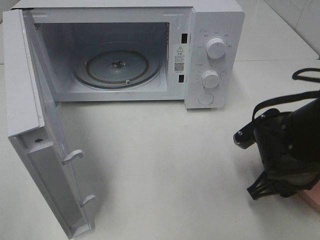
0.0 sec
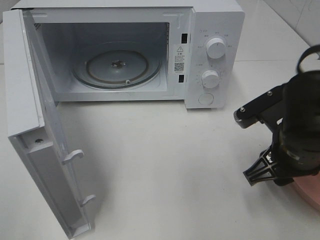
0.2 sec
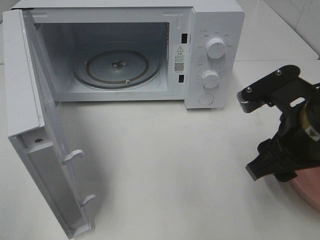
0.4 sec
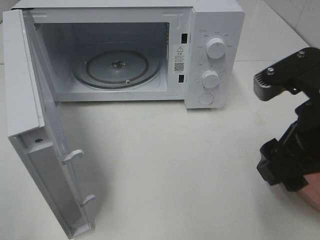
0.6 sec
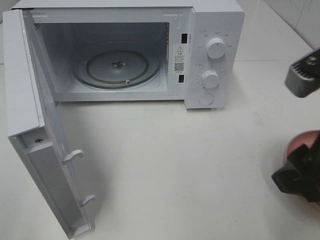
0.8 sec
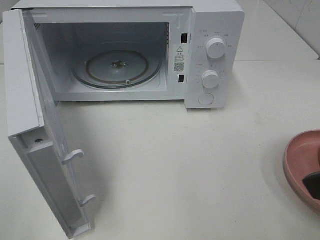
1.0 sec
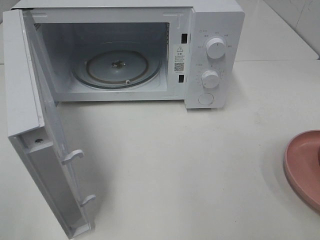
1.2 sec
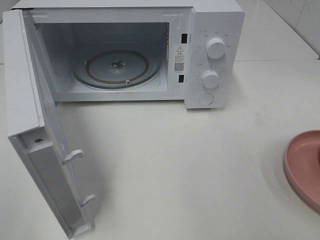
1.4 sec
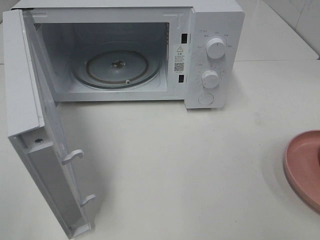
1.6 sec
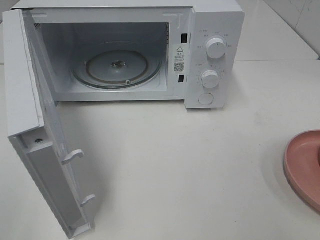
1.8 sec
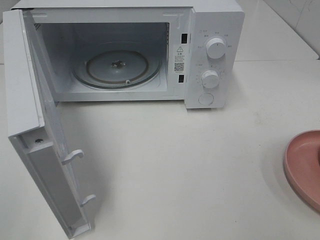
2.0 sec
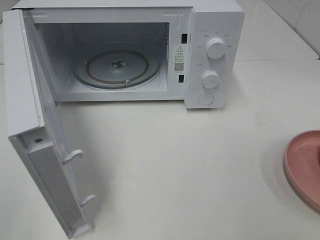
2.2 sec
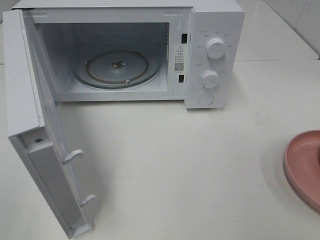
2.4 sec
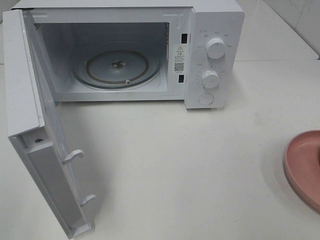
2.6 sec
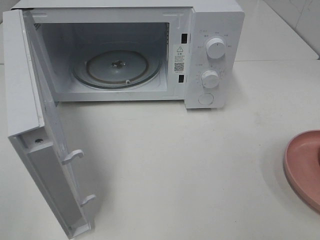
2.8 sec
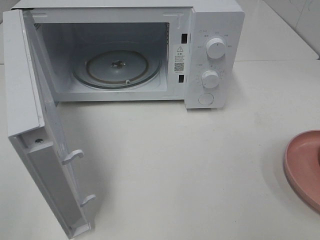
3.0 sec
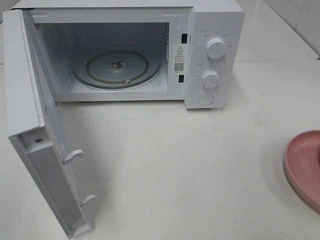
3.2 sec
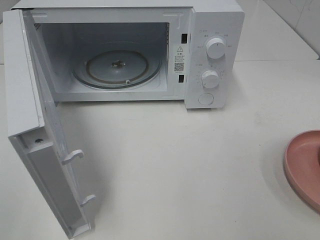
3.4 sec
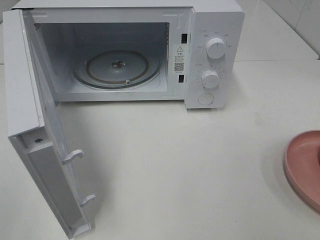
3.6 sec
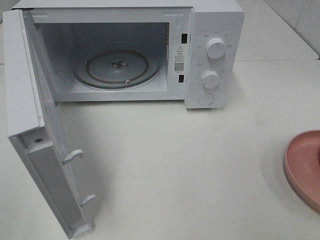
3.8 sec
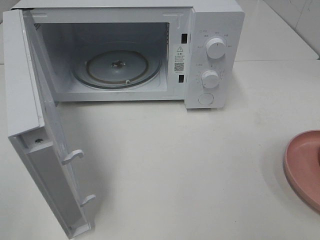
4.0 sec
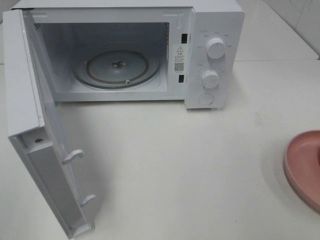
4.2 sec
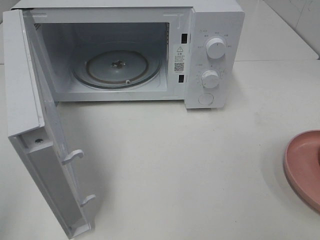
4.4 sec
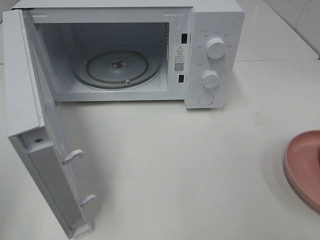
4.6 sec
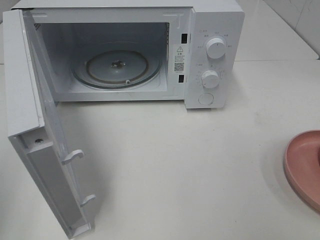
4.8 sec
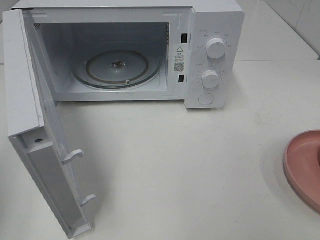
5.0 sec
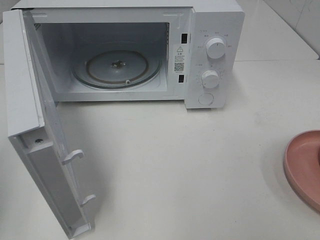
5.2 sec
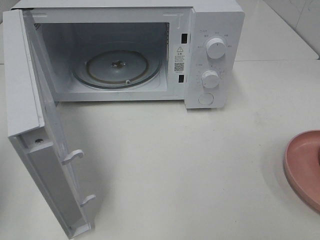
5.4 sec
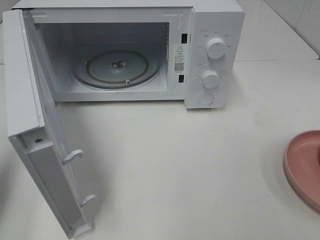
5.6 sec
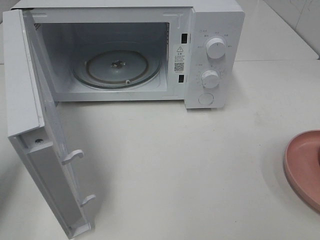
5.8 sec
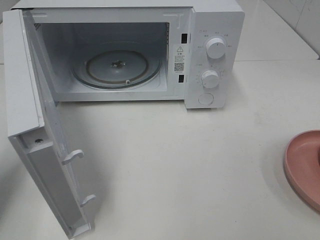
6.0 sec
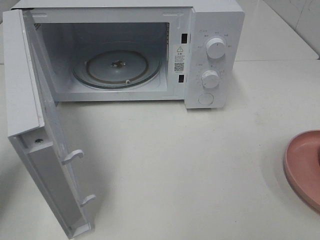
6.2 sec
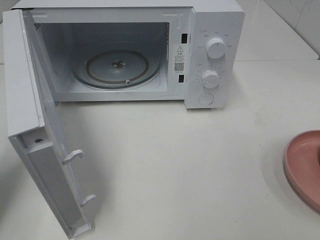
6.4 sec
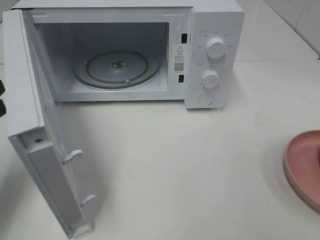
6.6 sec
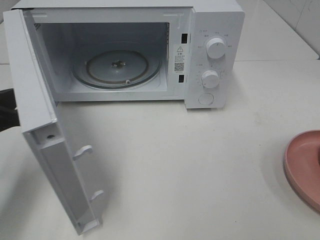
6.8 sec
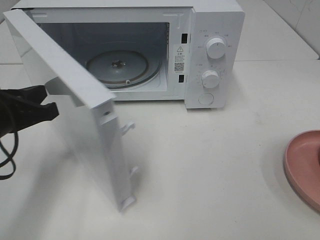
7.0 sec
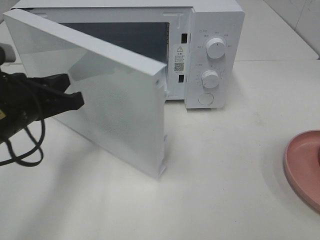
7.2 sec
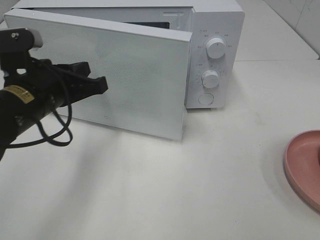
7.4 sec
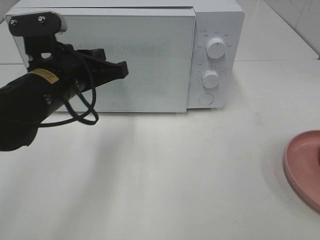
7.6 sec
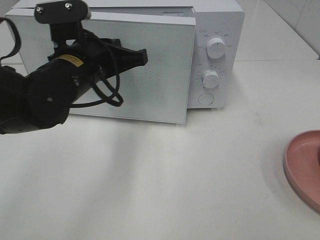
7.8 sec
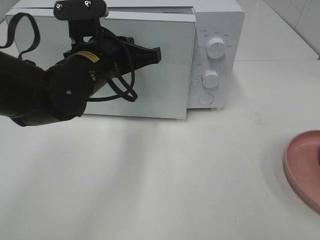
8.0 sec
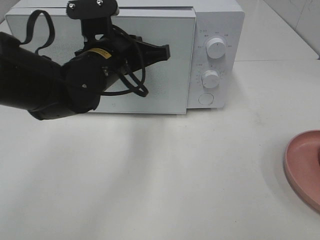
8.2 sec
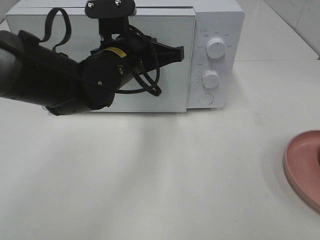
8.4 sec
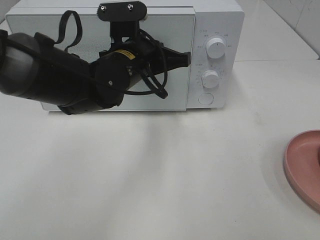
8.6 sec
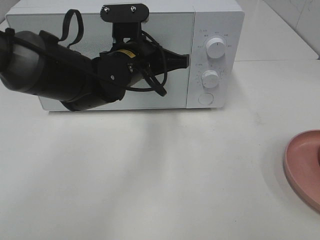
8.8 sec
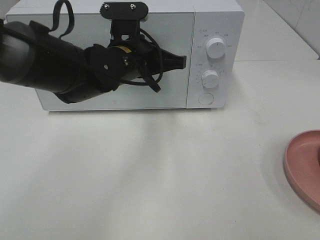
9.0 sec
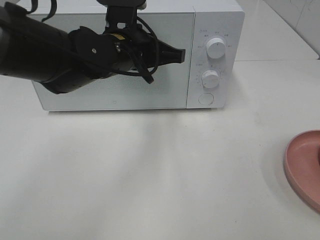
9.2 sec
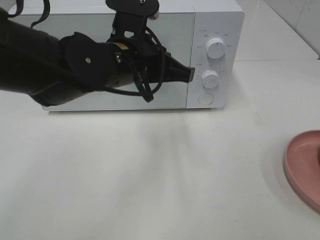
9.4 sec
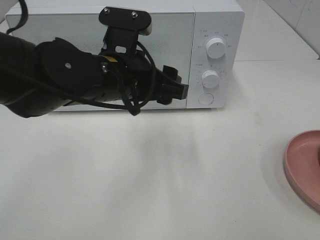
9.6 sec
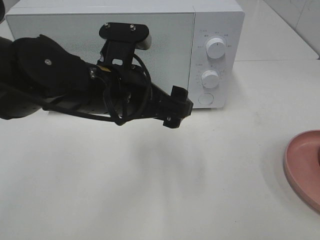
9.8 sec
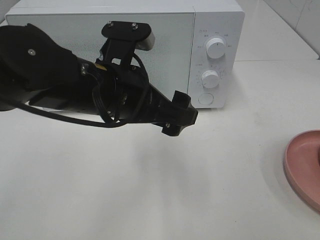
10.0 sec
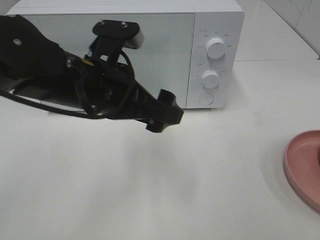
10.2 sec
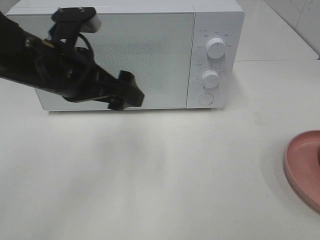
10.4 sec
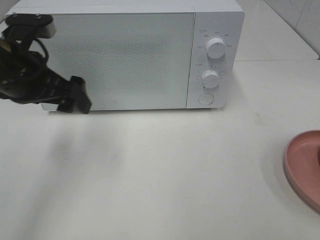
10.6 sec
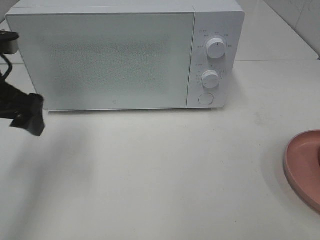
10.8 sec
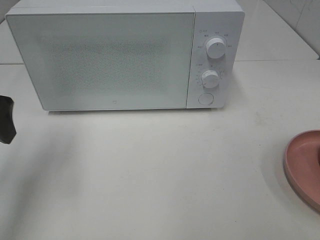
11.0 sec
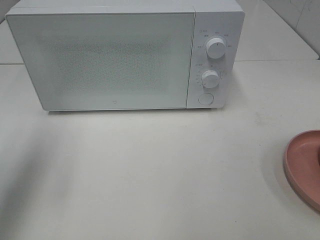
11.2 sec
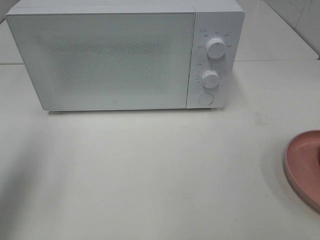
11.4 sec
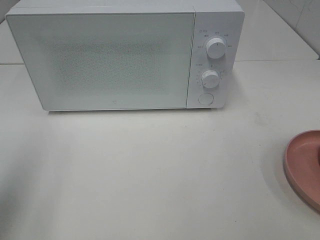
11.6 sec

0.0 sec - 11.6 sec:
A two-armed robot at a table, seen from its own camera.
Task of the whole recording: Heat the burger.
Step, 0.2 sec - 9.2 sec: Left hand: close the microwave door.
0.0 sec - 1.4 sec: The right gripper moves upward and backward, approximately 25 cm.
4.4 sec - 5.8 sec: The left gripper shifts roughly 15 cm forward and downward, and closes.
5.8 sec - 7.2 sec: The left gripper heads to the right and forward, covering some 15 cm.
7.2 sec - 8.8 sec: The left gripper shifts approximately 20 cm to the right and forward.
8.8 sec - 10.2 sec: The left gripper heads backward, covering roughly 10 cm, and opens up.
10.2 sec - 11.6 sec: The left gripper moves to the left and backward, some 25 cm.

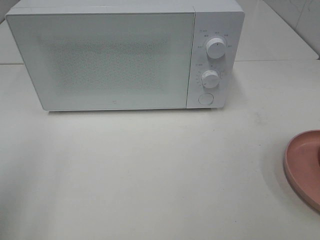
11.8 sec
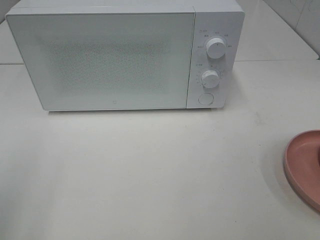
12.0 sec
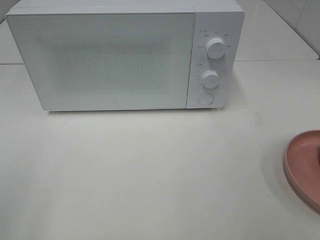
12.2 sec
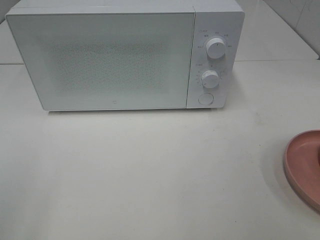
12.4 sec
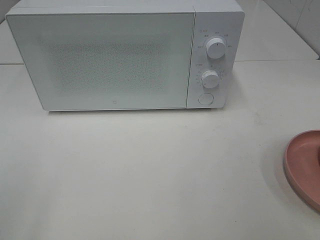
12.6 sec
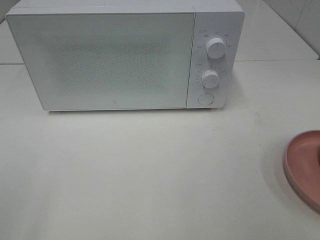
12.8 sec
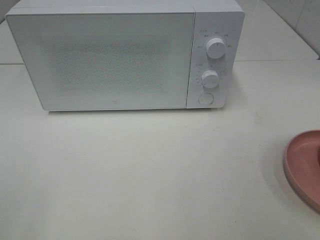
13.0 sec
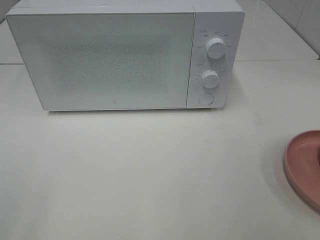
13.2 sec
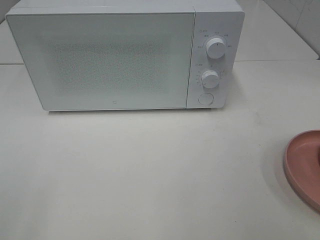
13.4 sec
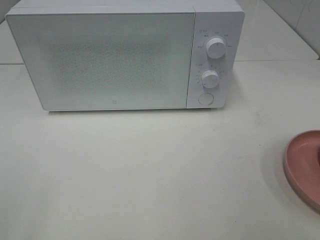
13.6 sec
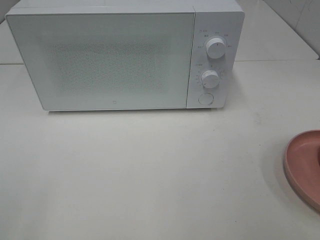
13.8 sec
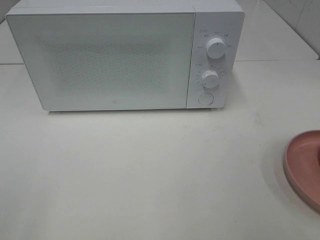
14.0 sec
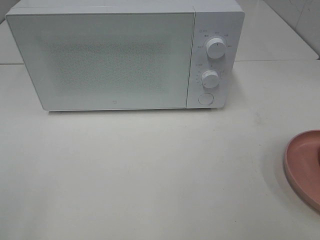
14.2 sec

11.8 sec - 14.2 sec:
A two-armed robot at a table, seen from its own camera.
Task of the whole recording: Heat the burger.
13.0 sec - 14.2 sec: The two grippers keep their place.

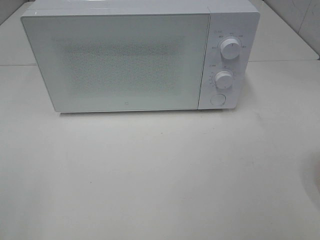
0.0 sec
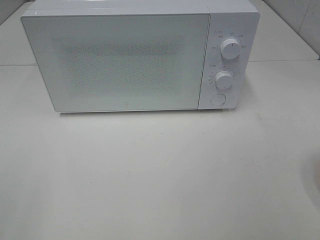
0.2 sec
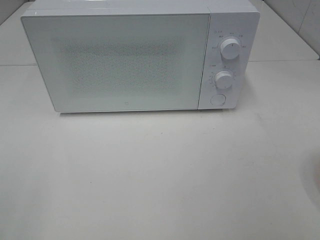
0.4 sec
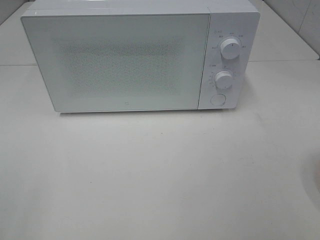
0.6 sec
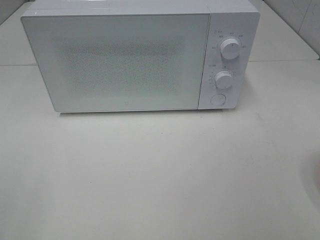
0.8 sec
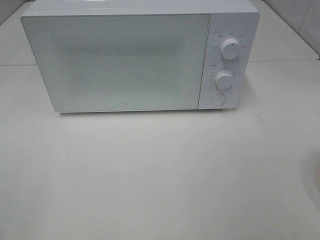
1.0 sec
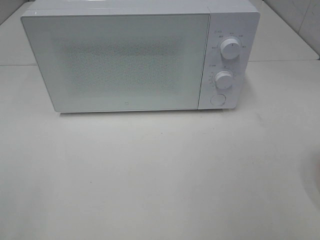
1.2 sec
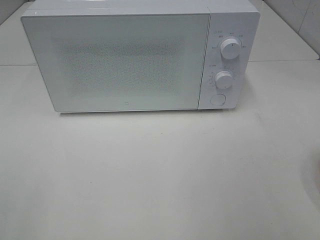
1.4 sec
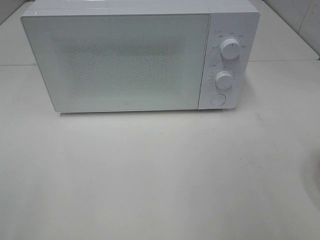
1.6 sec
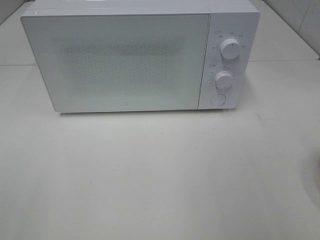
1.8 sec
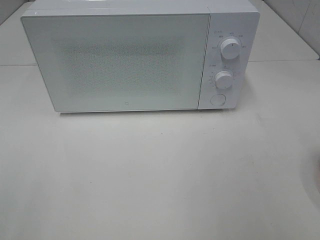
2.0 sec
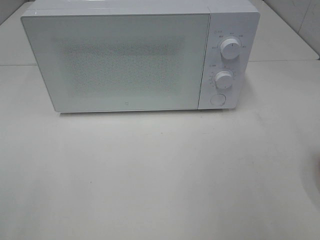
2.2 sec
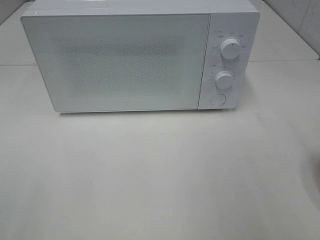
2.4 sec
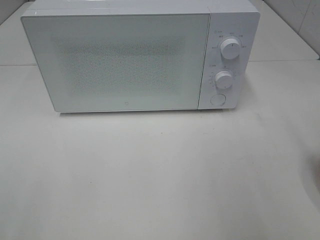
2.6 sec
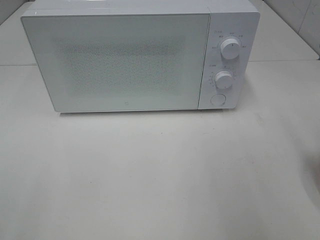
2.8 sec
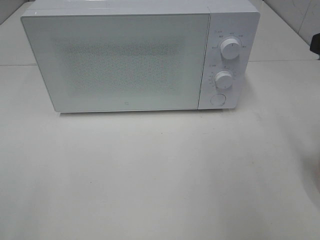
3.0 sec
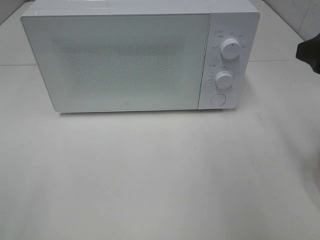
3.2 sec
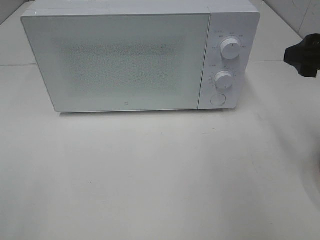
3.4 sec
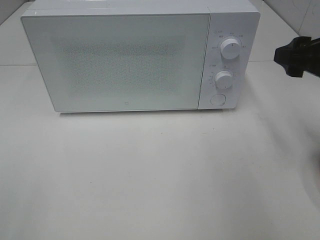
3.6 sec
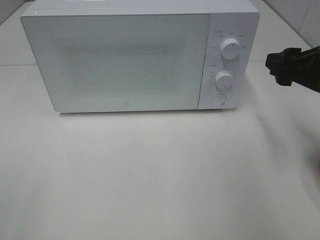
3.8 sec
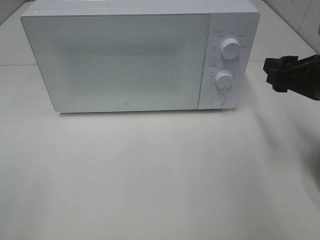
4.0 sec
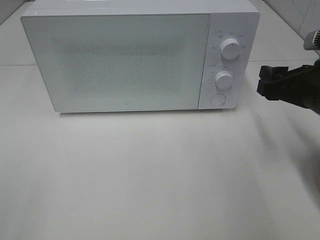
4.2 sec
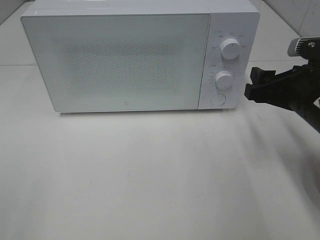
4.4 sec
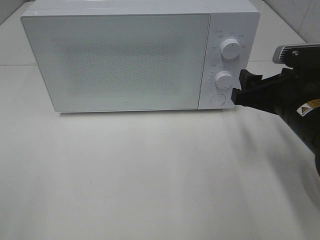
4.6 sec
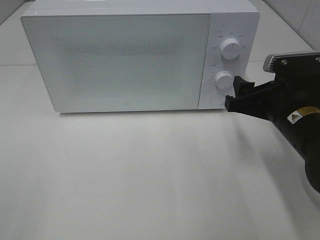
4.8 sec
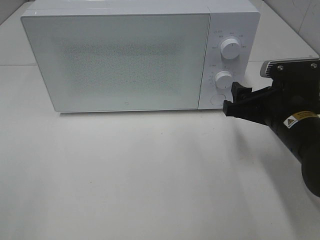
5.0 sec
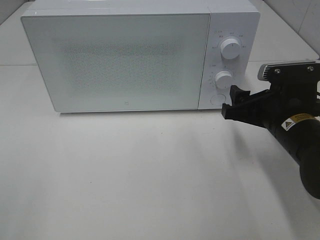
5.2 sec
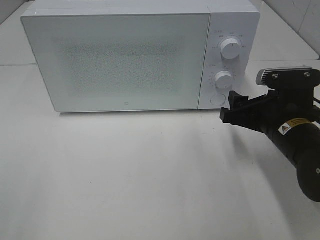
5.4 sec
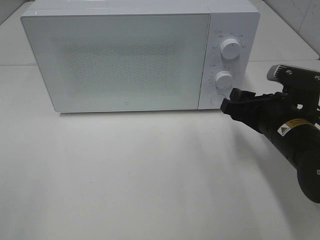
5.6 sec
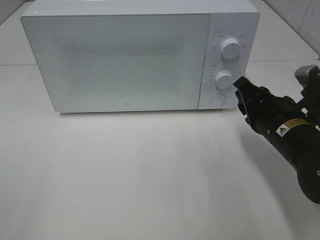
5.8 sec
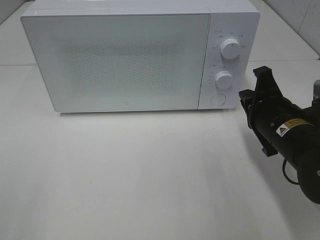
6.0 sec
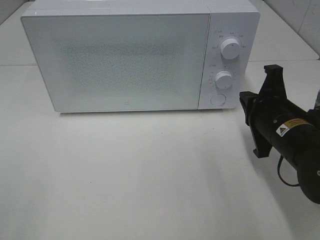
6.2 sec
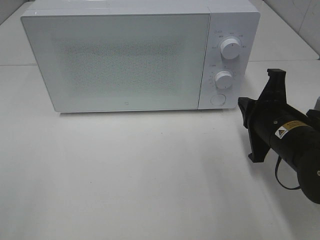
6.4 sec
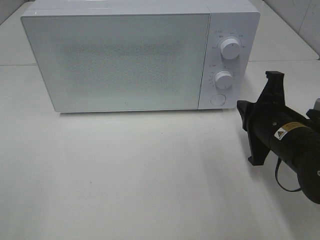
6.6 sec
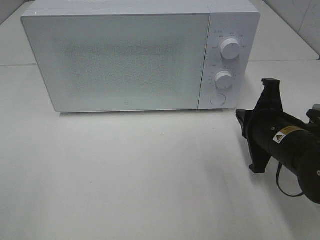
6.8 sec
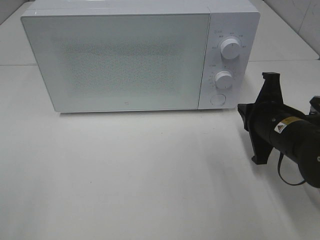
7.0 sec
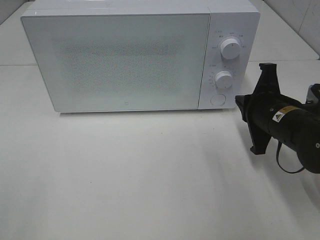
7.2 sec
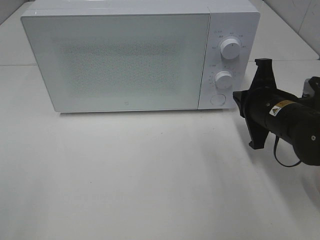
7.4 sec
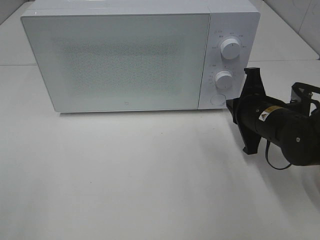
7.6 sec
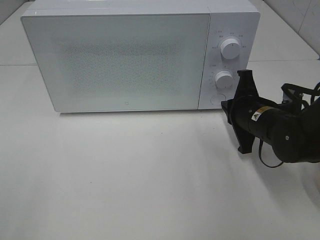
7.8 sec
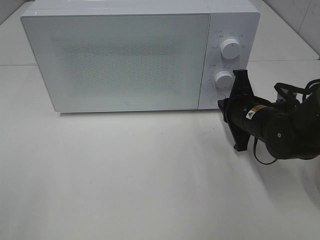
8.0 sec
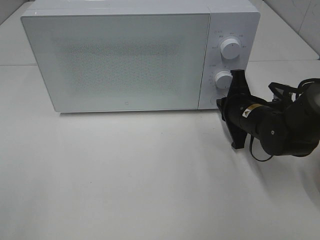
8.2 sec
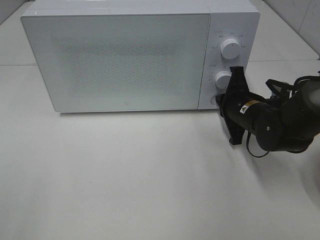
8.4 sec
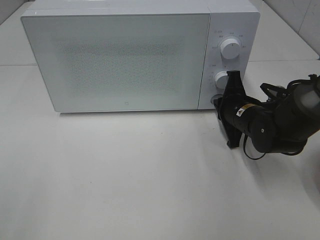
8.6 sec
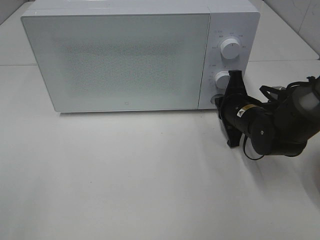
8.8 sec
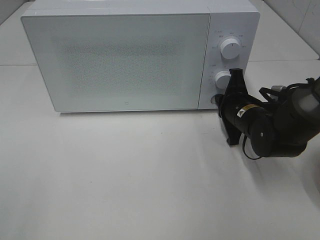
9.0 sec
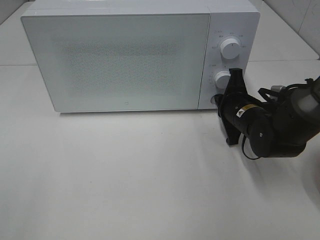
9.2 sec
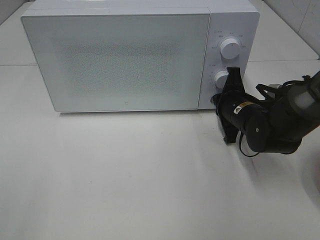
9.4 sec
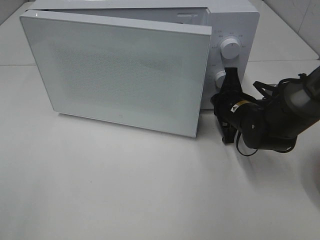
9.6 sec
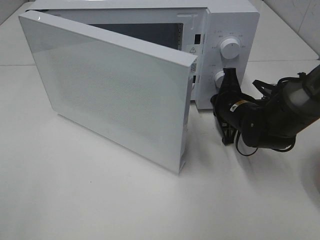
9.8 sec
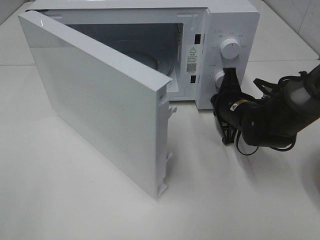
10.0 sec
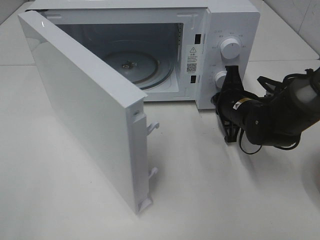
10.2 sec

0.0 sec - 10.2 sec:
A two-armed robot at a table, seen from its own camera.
Task of the whole recording: Heat the burger.
3.0 sec - 4.4 sec: The right gripper travels downward and forward by about 15 cm.
4.4 sec - 5.8 sec: The right gripper changes place by approximately 5 cm, and closes up.
5.8 sec - 7.2 sec: The right gripper closes.
7.2 sec - 8.8 sec: The right gripper heads forward and downward, covering approximately 10 cm.
